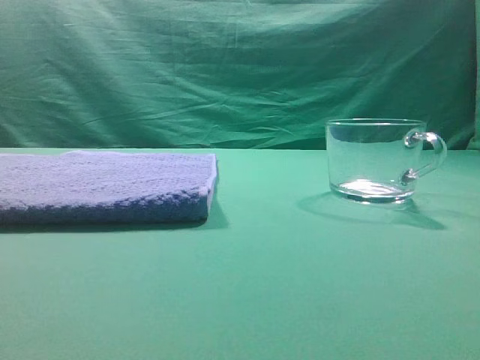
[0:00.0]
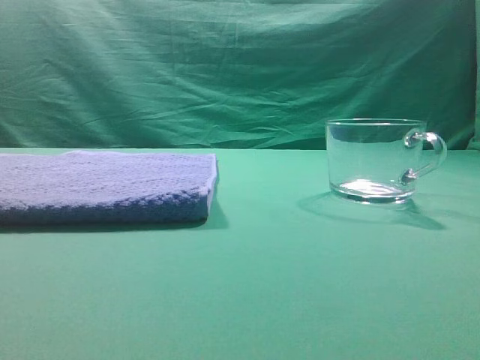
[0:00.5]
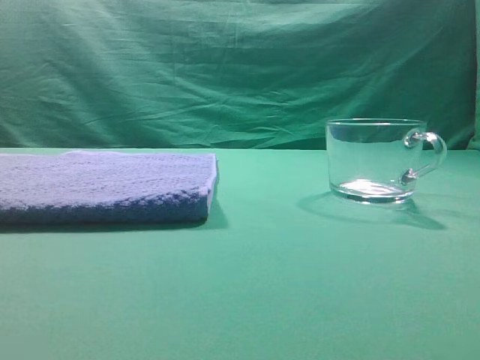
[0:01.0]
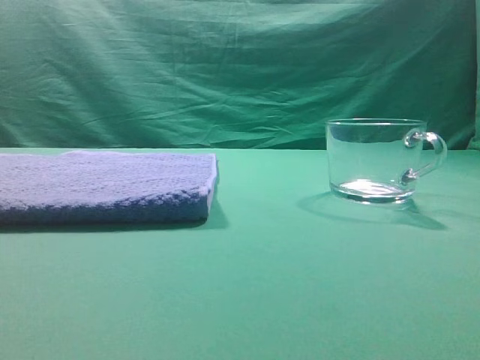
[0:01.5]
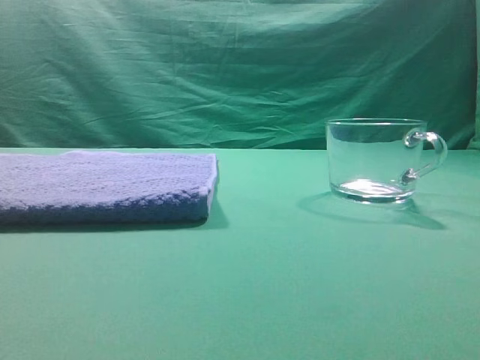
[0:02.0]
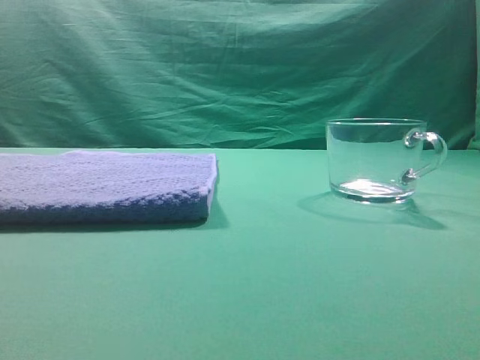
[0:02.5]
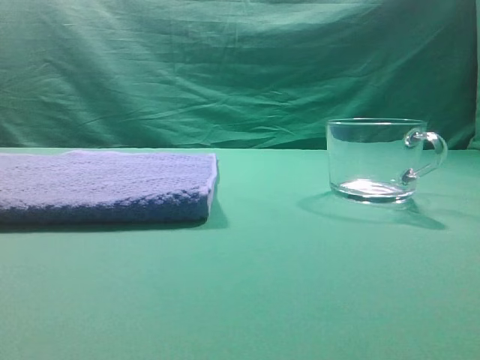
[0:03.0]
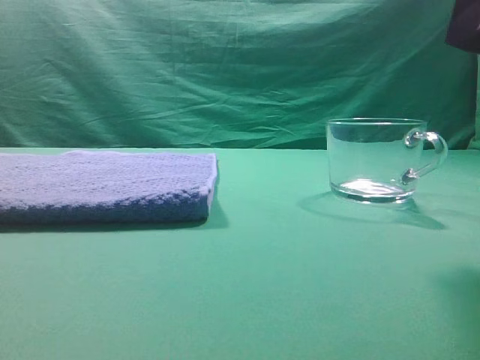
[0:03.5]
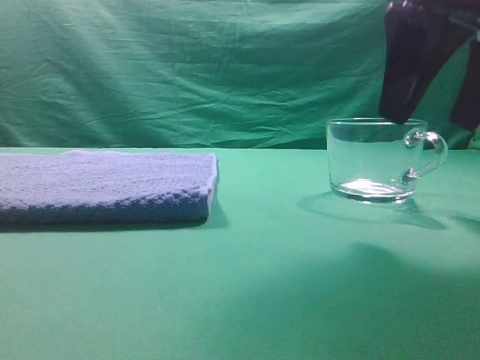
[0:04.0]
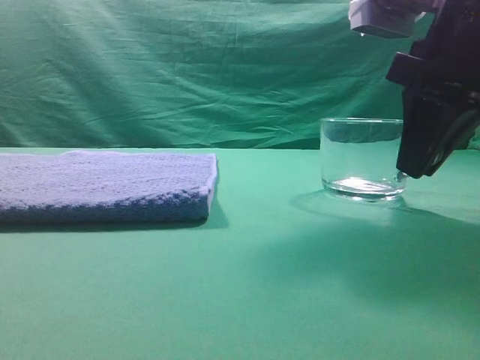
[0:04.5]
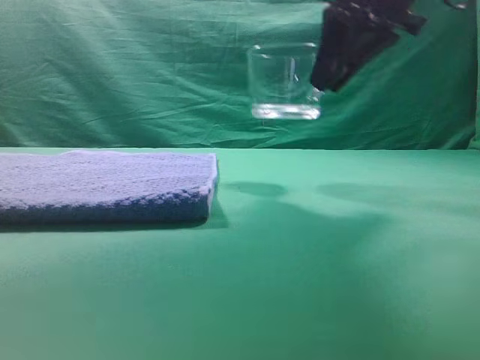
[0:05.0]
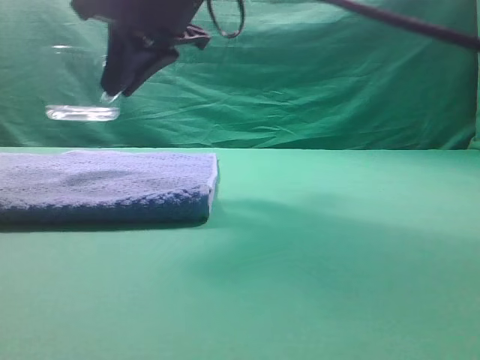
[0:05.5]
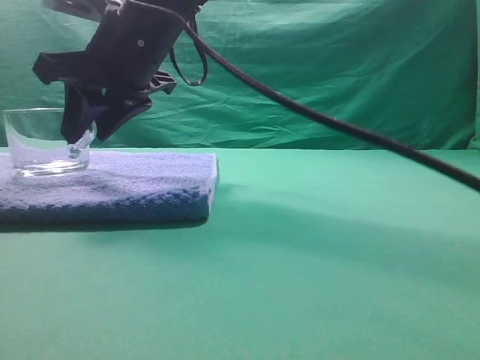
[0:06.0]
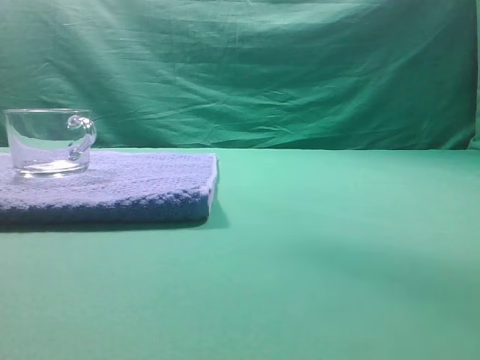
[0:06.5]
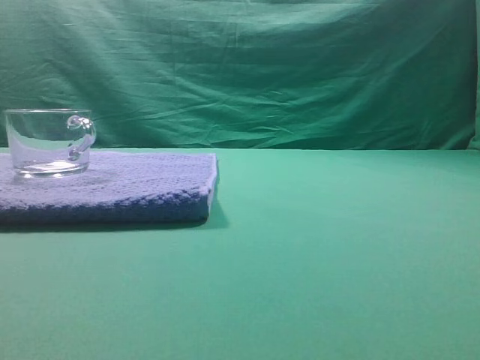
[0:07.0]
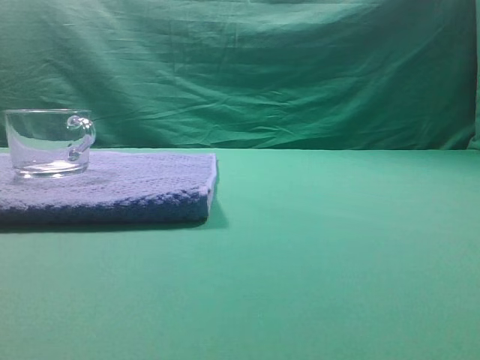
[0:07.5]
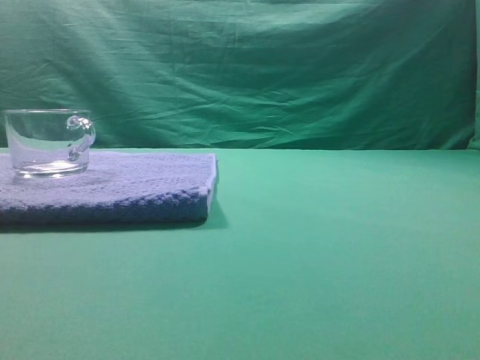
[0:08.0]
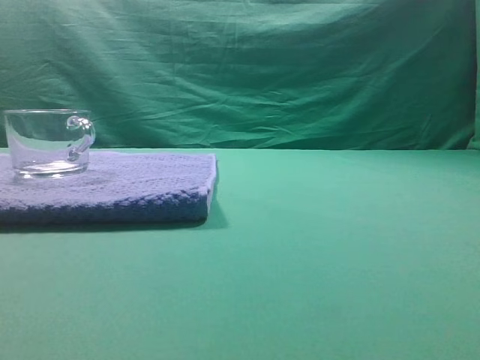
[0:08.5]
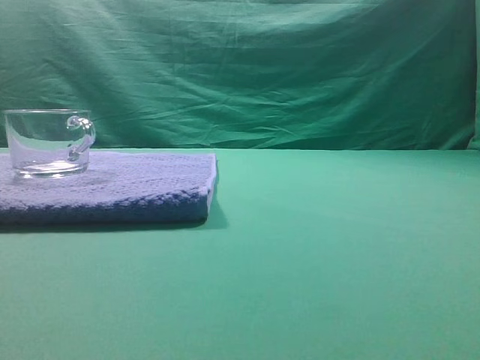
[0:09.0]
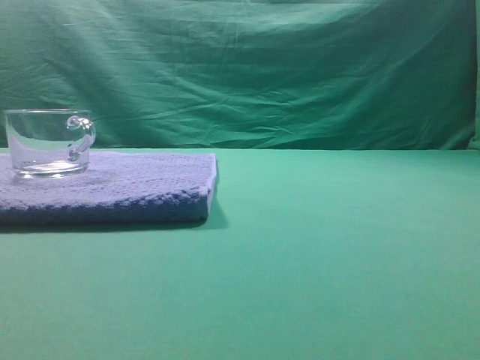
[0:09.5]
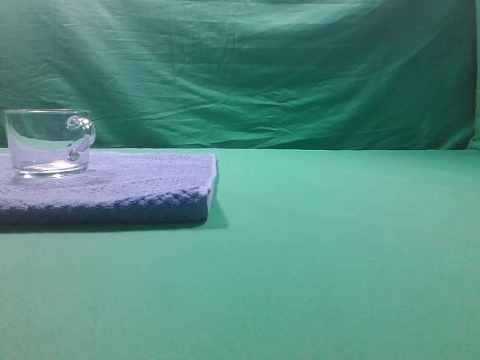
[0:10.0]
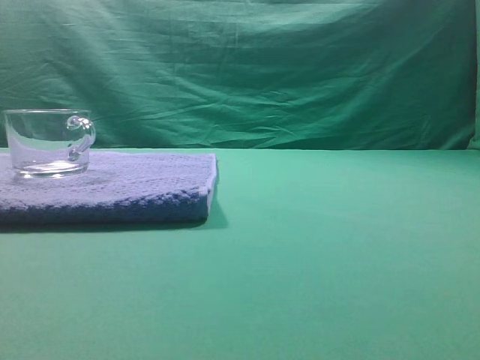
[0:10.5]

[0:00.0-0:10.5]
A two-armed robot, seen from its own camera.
Task of the whole recording: grasp the transparent glass cup and place it within the blue towel.
Step, 0:00.0 to 0:04.5: Grasp the transparent glass cup.
Step, 0:05.0 to 0:06.0: Place the glass cup on the blue zone.
